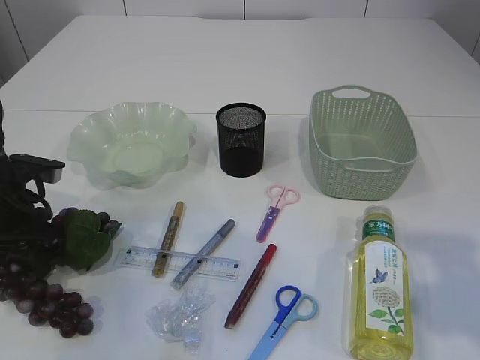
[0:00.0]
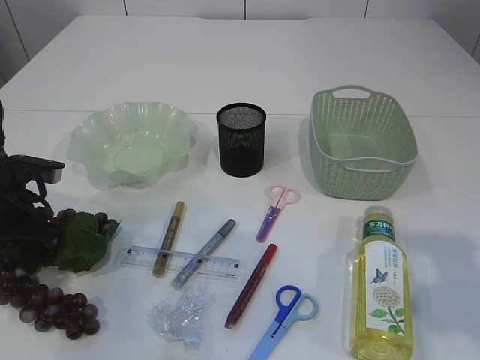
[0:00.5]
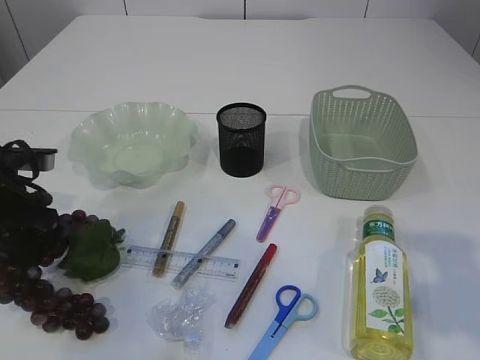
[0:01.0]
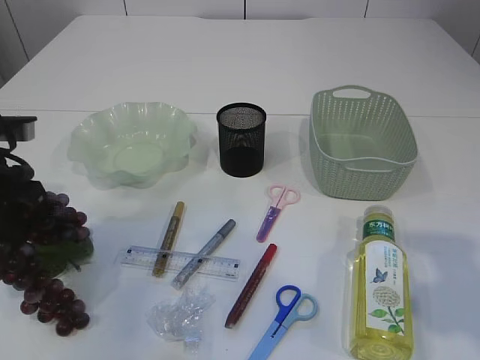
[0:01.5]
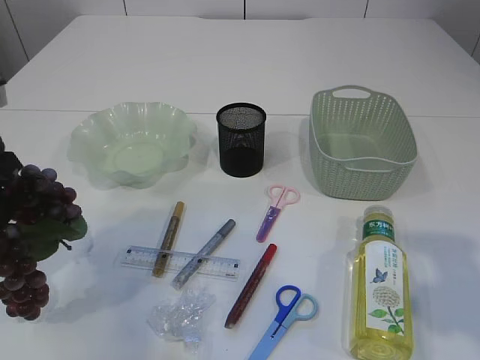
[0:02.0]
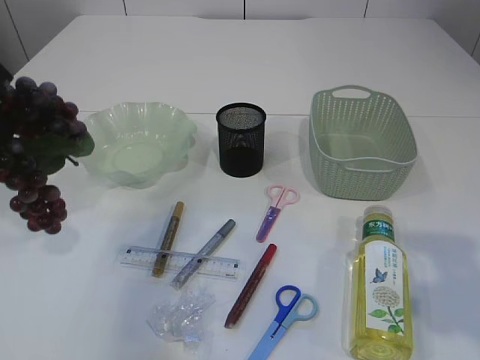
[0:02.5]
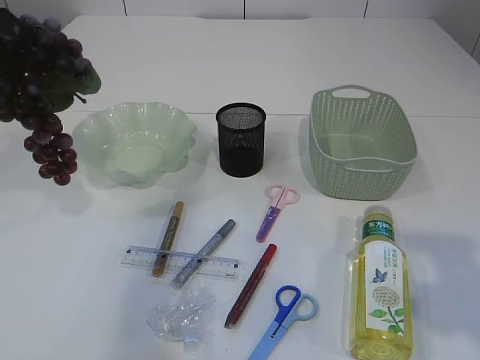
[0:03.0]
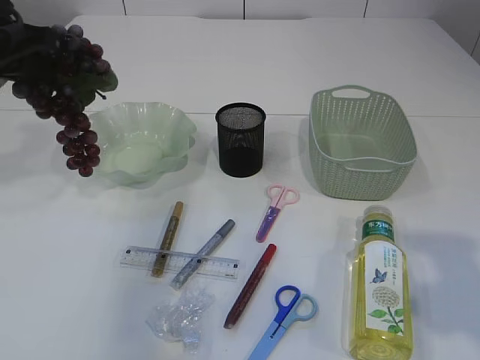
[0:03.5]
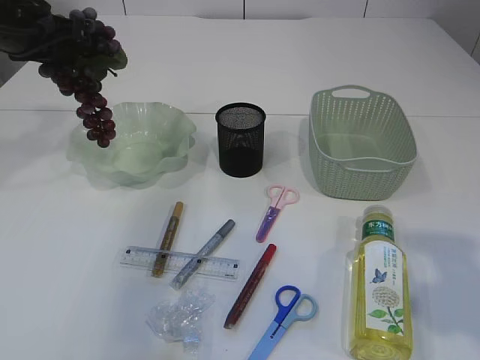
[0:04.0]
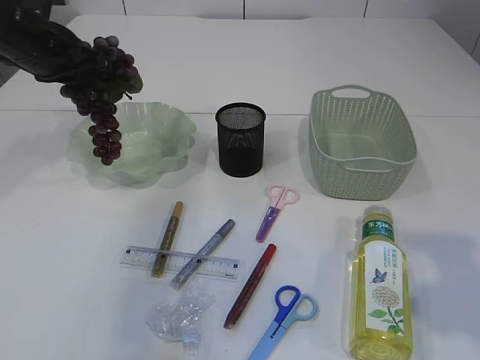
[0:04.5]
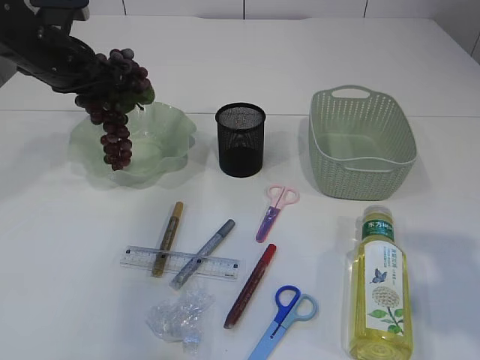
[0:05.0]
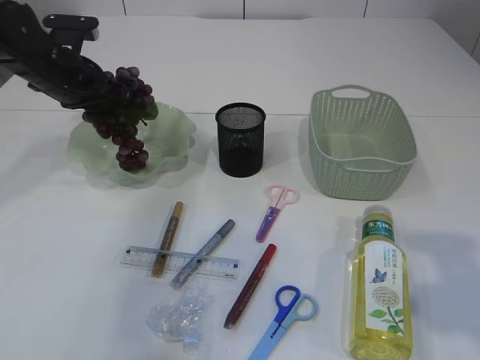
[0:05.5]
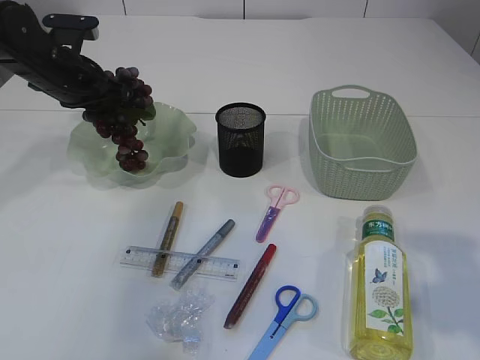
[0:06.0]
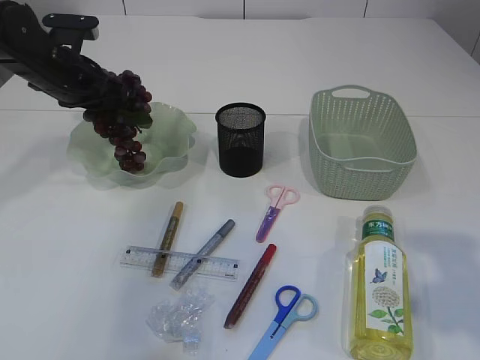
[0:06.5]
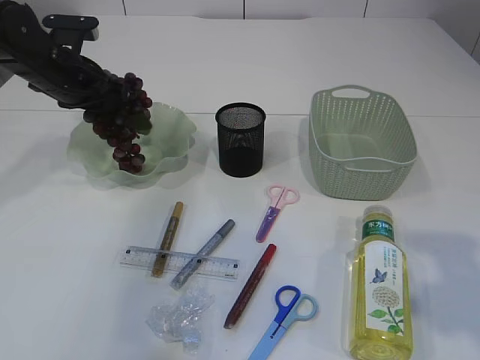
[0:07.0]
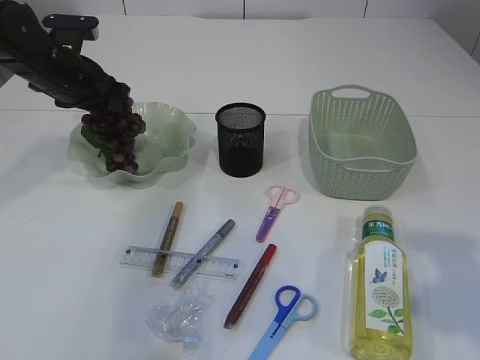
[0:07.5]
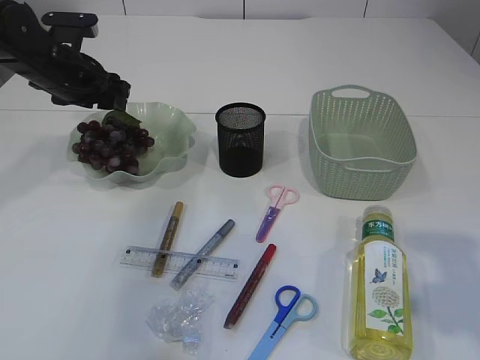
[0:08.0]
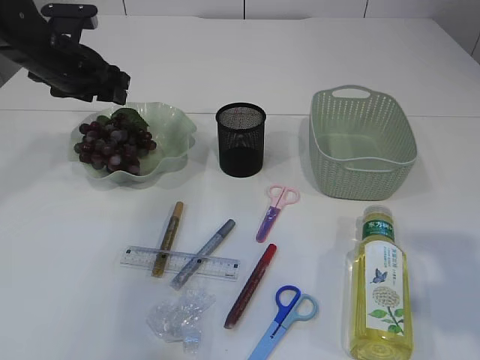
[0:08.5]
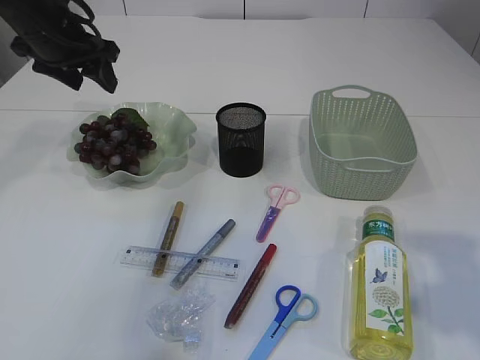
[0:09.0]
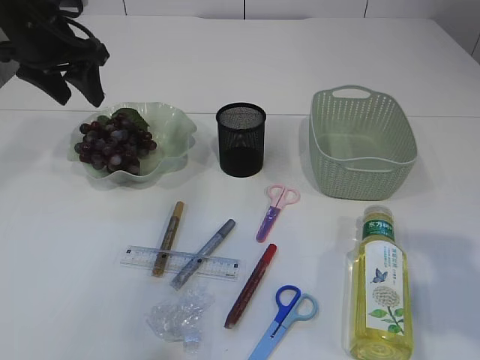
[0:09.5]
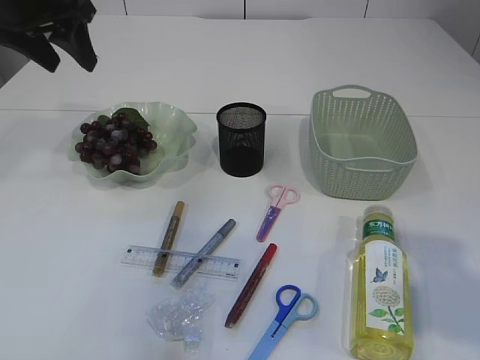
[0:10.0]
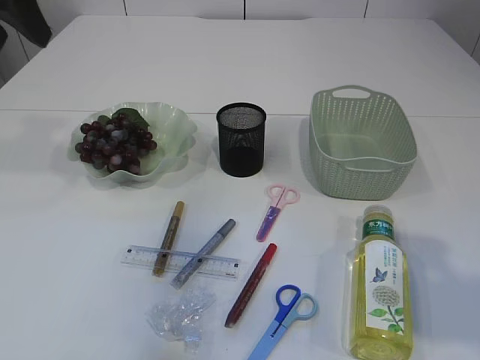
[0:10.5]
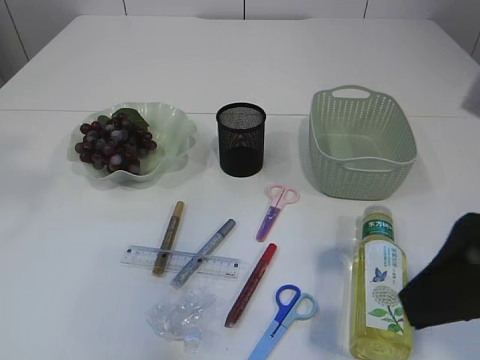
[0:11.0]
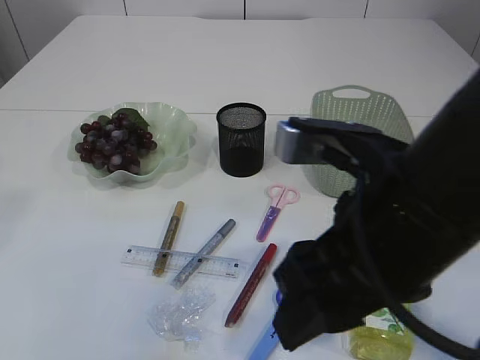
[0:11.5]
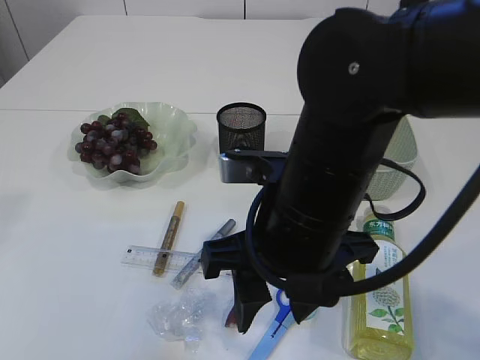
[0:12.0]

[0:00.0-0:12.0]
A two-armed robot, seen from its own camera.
Step, 0:00.0 to 0:02.5: Pick up the grapes.
Step, 0:03.0 to 0:09.0: Place the grapes in the plate.
0:00.0 to 0:02.0: The left gripper moves upward, approximately 10 cm, and closes.
0:02.0 to 0:04.0: The left gripper travels forward by some 15 cm.
0:04.0 to 0:06.0: The left gripper moves downward, approximately 10 cm.
0:06.0 to 0:08.0: The left gripper opens up.
0:08.0 to 0:10.0: The left gripper goes approximately 10 cm upward.
0:10.0 to 0:12.0: The right gripper shifts some 20 cm to the left; the left gripper travels backward and upward by about 25 cm.

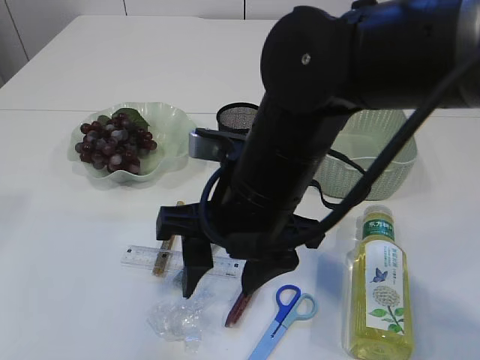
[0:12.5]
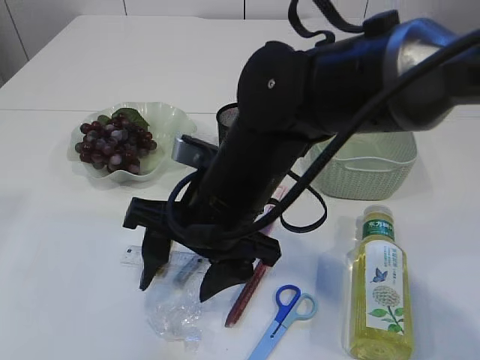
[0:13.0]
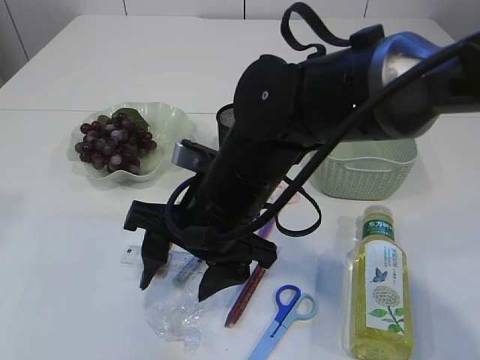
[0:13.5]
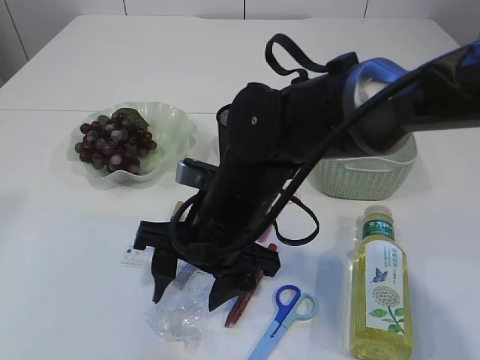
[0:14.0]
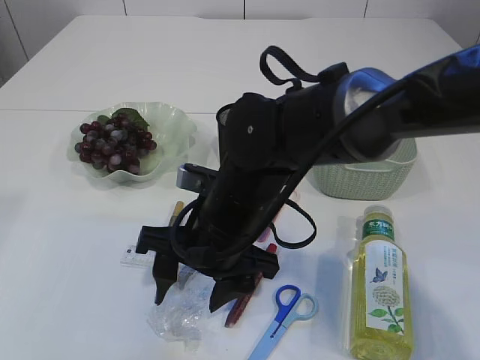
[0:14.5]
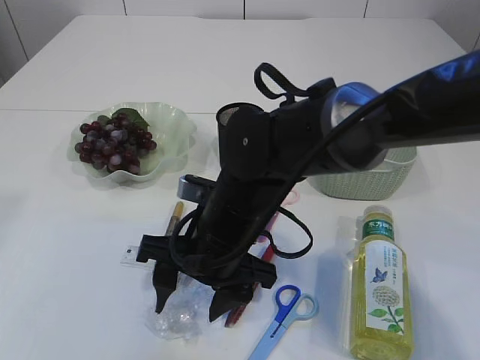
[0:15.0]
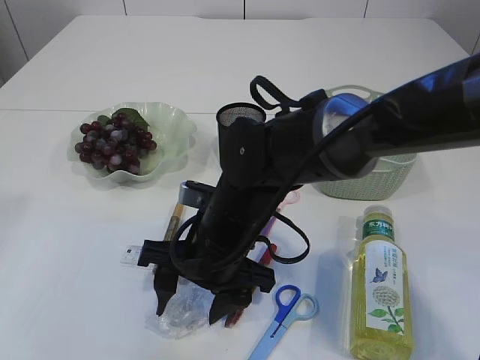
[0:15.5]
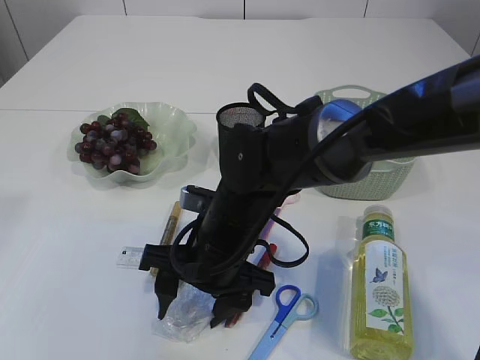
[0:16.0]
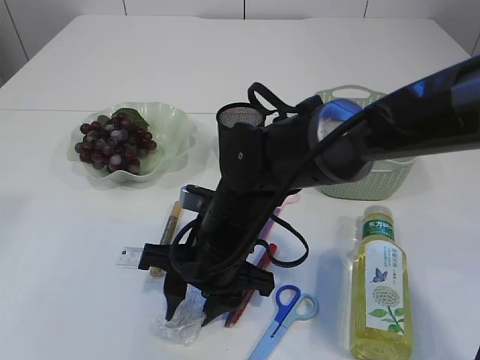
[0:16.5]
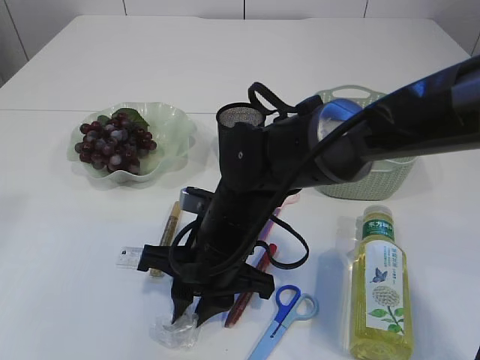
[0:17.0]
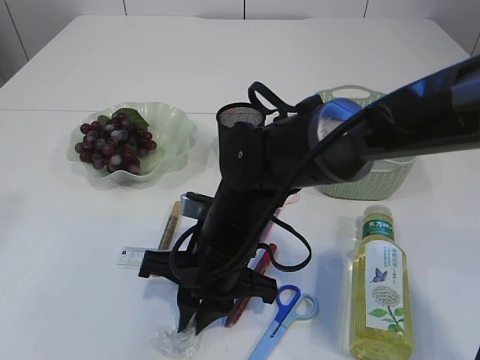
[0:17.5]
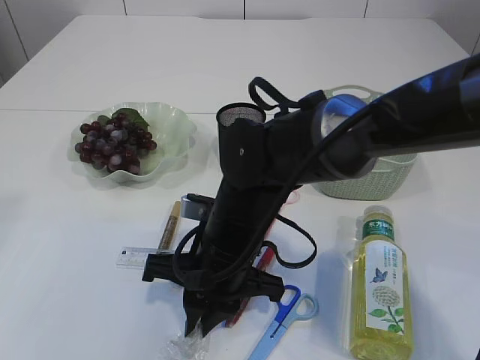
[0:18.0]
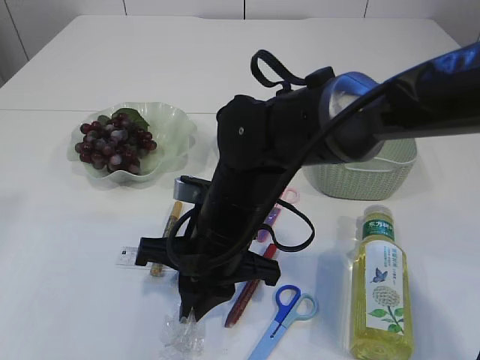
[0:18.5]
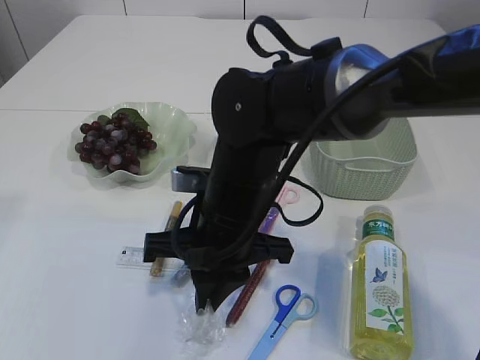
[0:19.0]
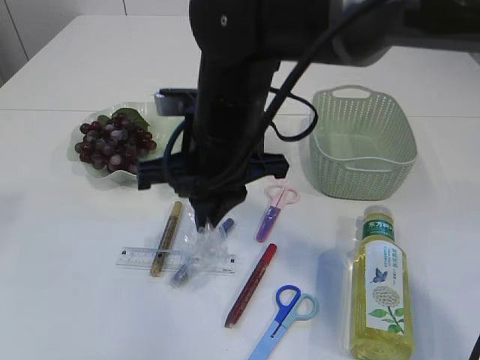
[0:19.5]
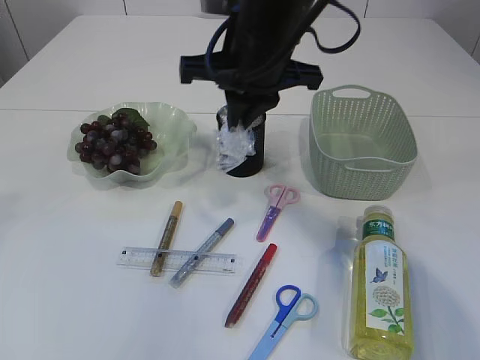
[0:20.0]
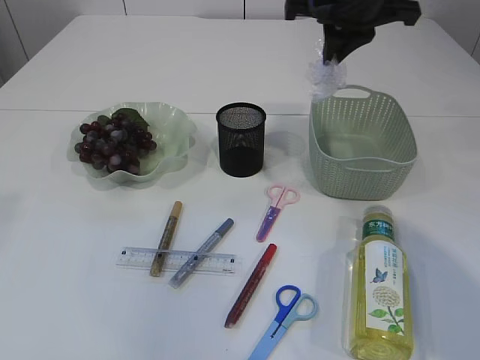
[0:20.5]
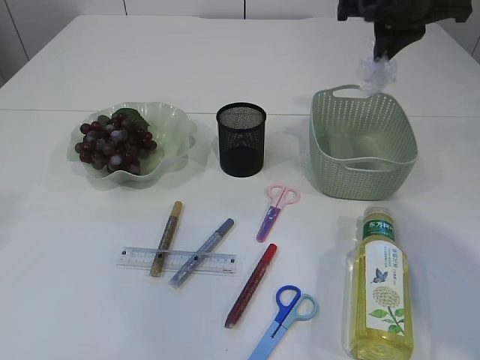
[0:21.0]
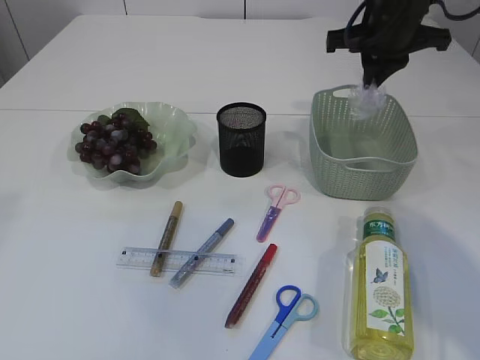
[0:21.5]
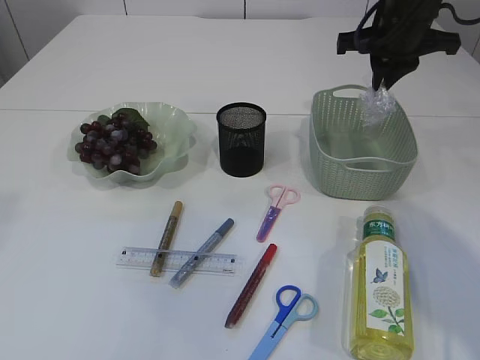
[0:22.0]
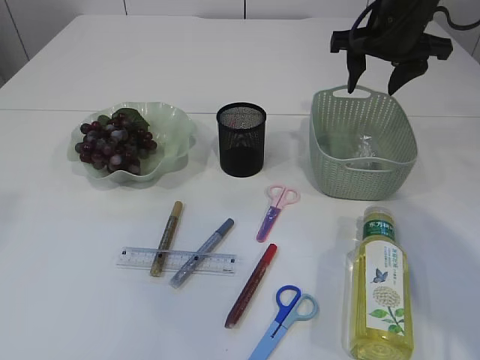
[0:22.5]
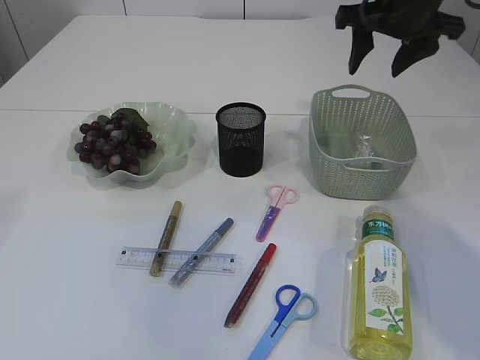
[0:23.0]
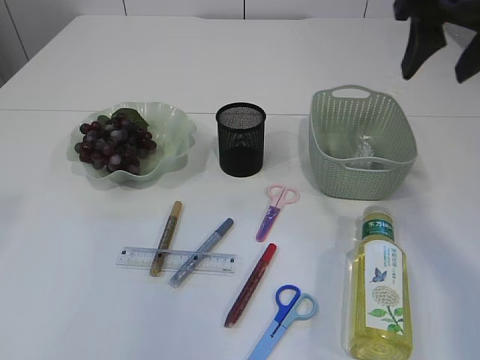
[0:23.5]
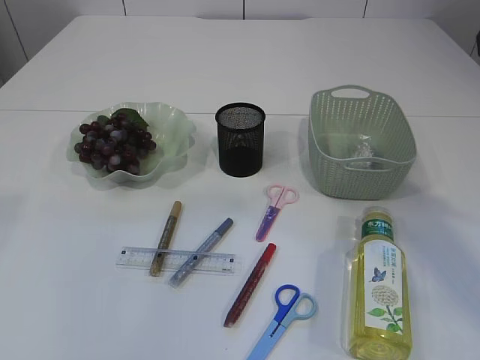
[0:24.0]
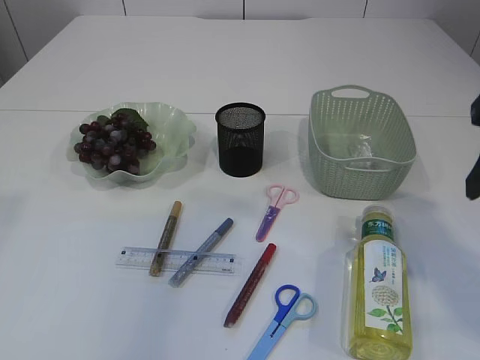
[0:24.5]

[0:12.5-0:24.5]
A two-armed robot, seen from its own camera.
Step, 0:12.5 to 0:19.5: Pick up the plastic.
Step, 0:20.0 to 0:22.5: Place the plastic in the basket.
0:12.5 to 0:14.5: The right gripper heads downward, covering some 5 cm.
0:14.5 to 0:16.5: The grippers stay close to where they were, moving slightly.
0:16.5 to 0:18.5: The right gripper closes.
0:18.5 to 0:20.5: The right gripper moves upward, to the right and forward, some 30 cm.
0:20.5 to 0:22.5: The right gripper shifts approximately 5 cm to the right, and opens up.
0:22.5 to 0:24.5: The right gripper moves backward, about 25 cm.

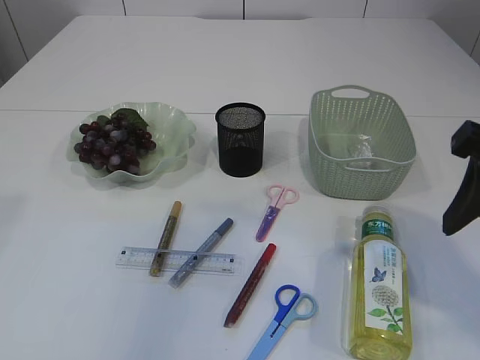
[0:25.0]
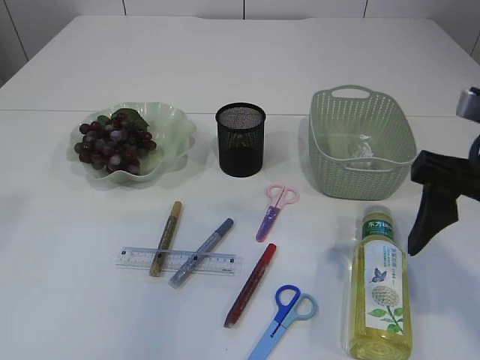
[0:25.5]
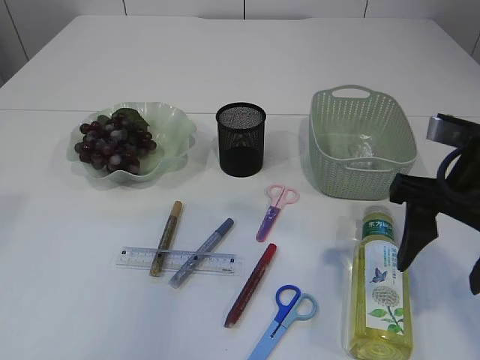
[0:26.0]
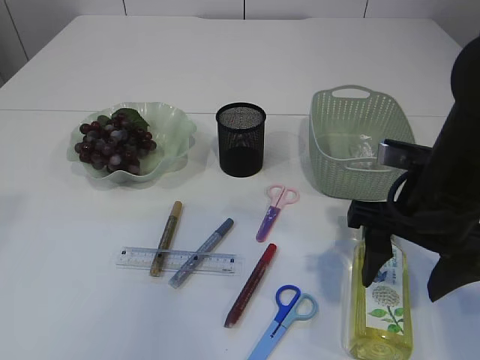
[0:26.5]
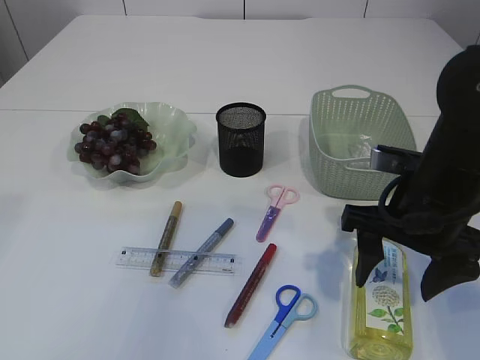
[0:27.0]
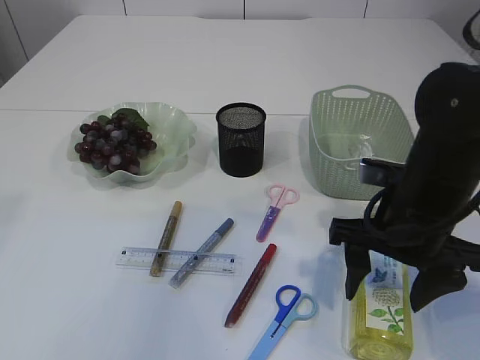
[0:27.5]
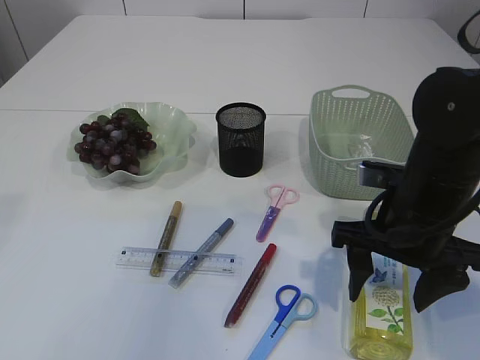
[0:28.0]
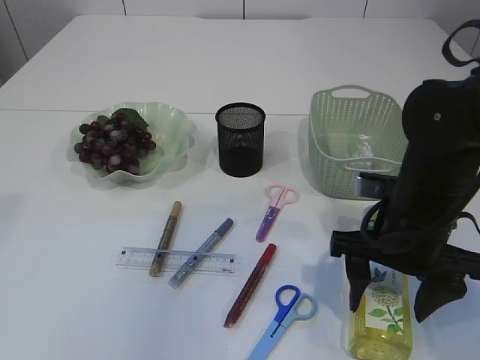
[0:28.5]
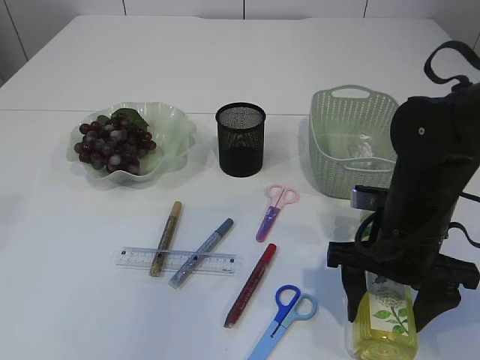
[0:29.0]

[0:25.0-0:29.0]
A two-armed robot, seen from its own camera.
0:25.0 to 0:27.0: The right gripper goes some 15 cm downward, forward and to the left.
0:27.0 to 0:29.0: The right gripper ends up roughly 5 cm from where it was.
